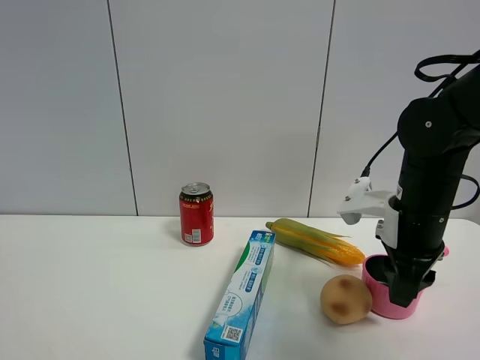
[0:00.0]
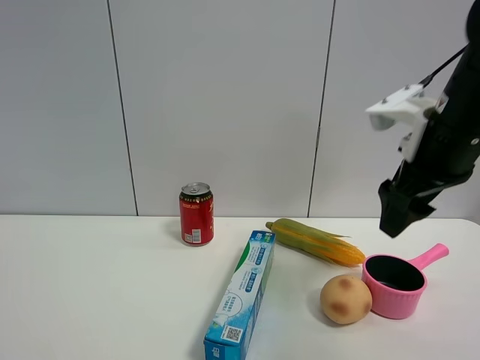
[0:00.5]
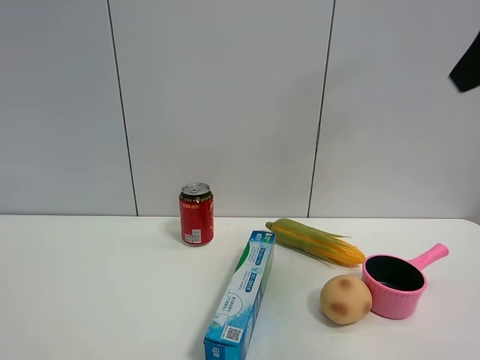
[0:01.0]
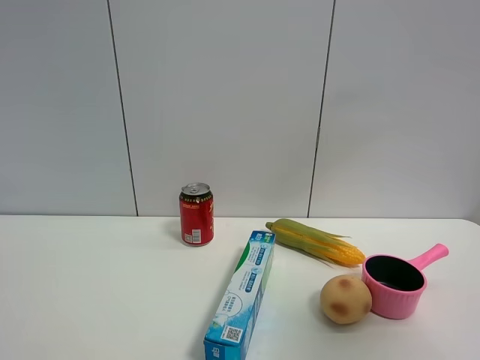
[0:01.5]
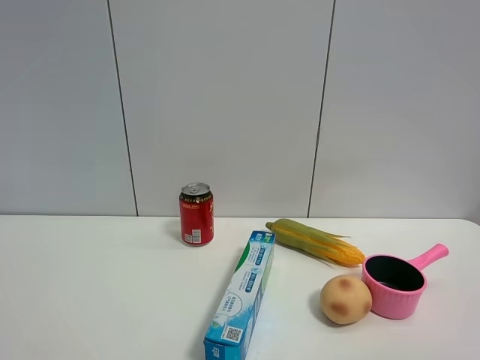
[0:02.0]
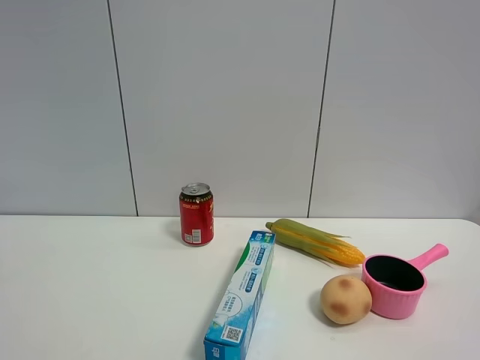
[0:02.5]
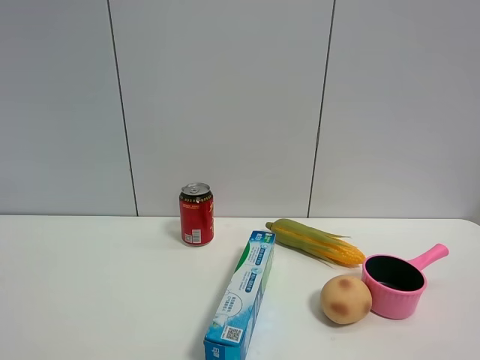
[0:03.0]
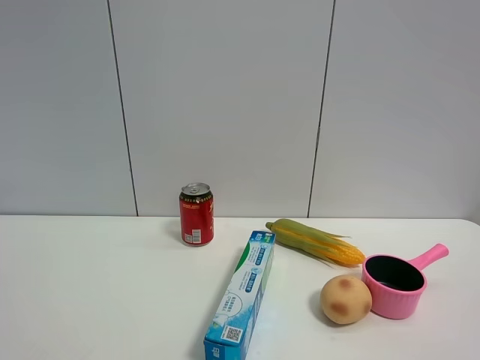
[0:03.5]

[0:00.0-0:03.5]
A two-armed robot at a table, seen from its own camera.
Task of the whole recording: the gripper move the object.
0:00.0 to 0:02.0: The right gripper is displaced backward and upward by some 35 cm, and opens.

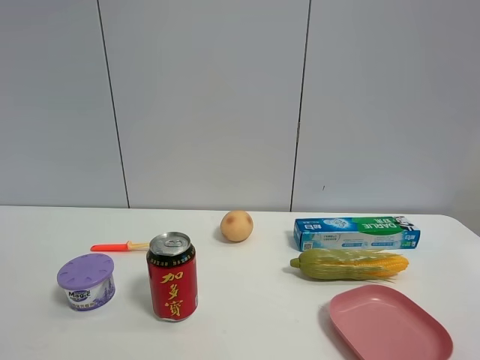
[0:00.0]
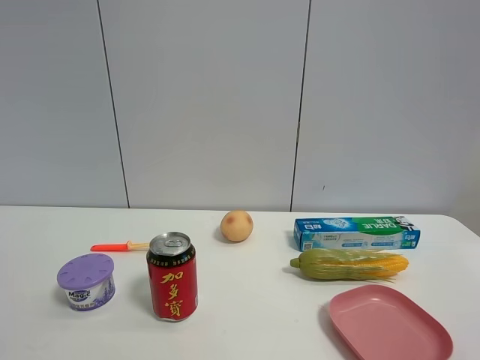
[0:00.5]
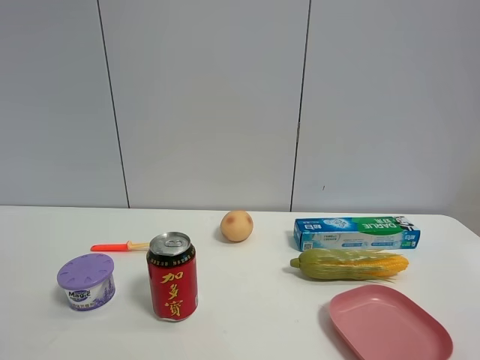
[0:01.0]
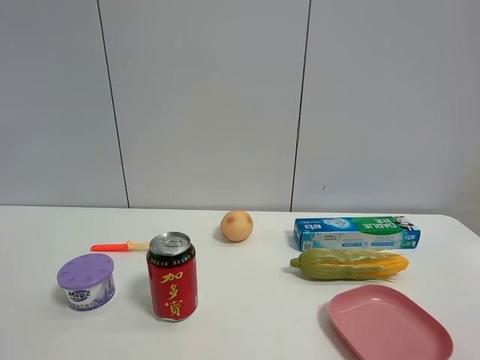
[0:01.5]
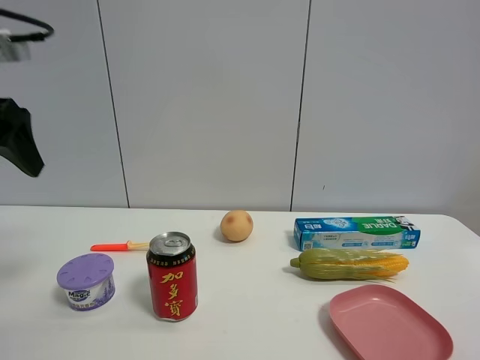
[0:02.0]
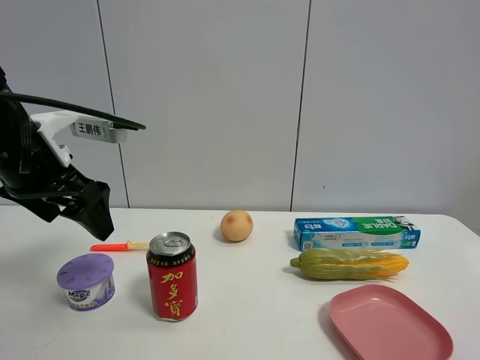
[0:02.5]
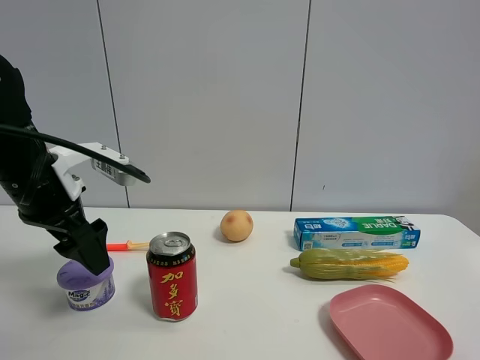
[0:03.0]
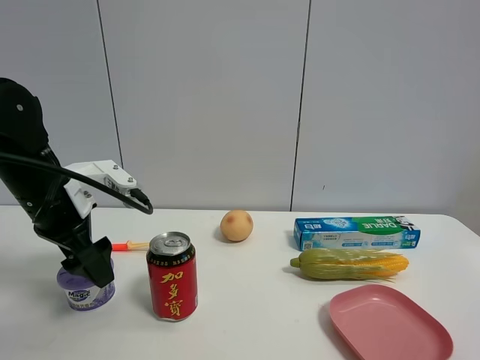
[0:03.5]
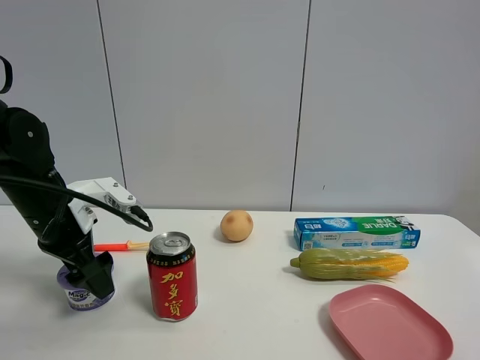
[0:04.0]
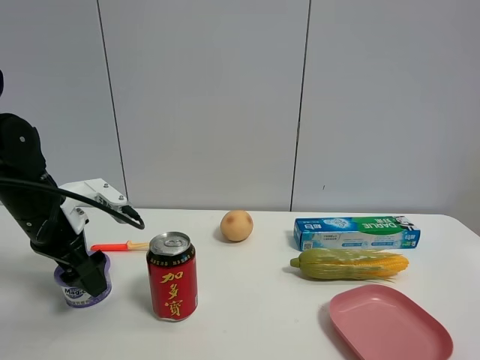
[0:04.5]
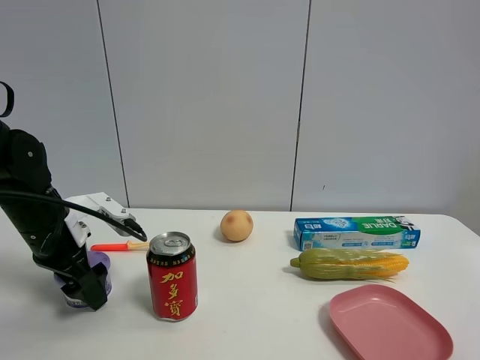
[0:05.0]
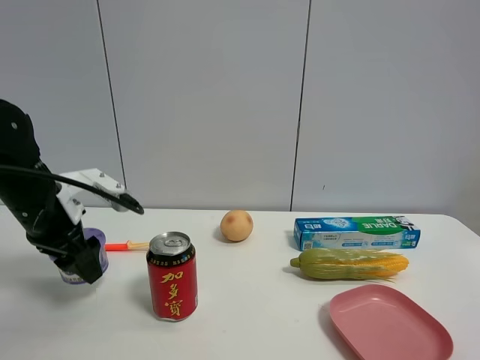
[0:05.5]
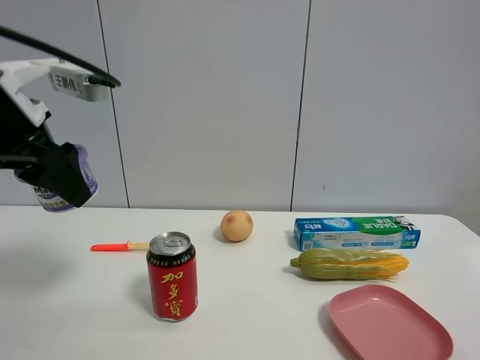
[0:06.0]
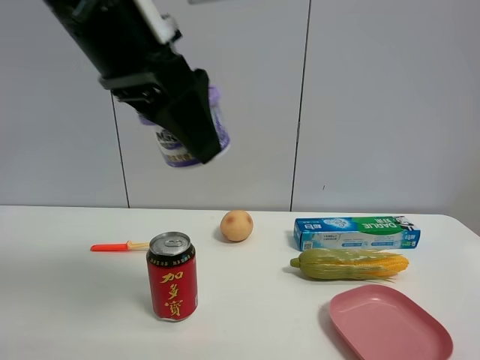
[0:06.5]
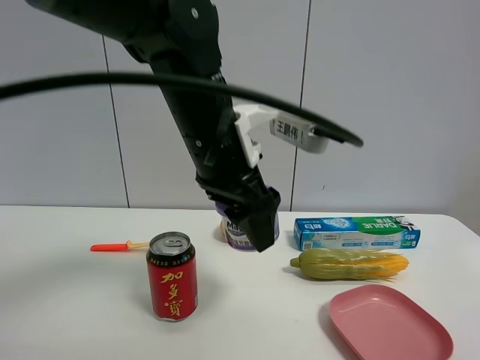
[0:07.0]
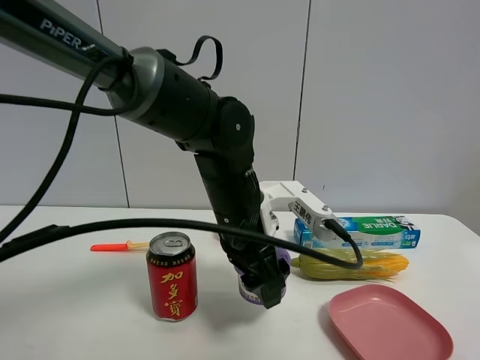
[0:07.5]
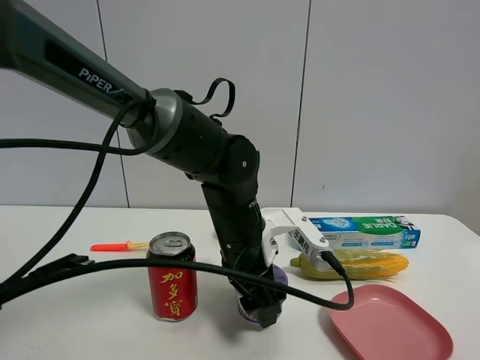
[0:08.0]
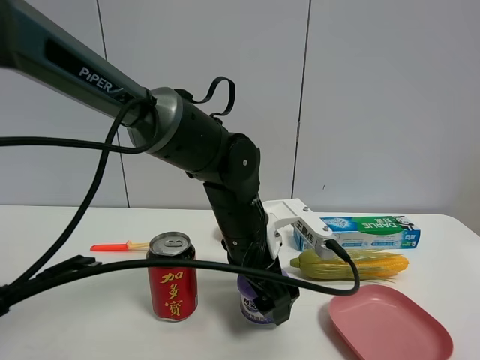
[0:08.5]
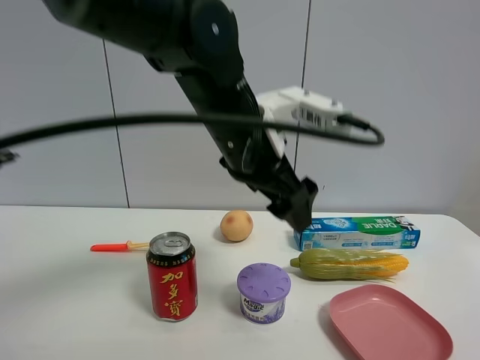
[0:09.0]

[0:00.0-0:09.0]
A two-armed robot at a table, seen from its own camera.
Task of the whole recording: the gripper move the object.
Step, 0:00.0 to 0:05.0: Grasp the Incense box with the left gripper.
Step, 0:05.5 to 0:08.5: Place the Incense box on the table with the left gripper.
0:00.0 to 0:02.0: The left gripper travels forward by some 30 cm.
0:02.0 to 0:04.5: The left gripper shifts roughly 20 cm downward and forward.
0:04.5 to 0:07.0: The left gripper moves to the right and upward, roughly 25 cm, and closes.
0:07.0 to 0:09.0: The left gripper goes downward and returns, some 10 cm each way, and opens.

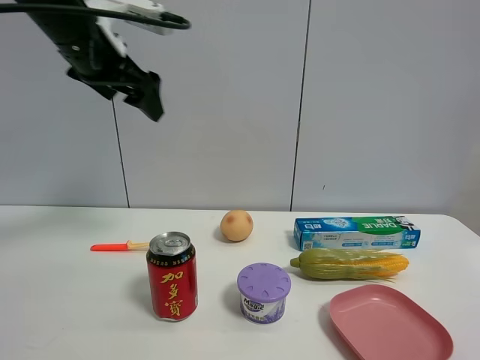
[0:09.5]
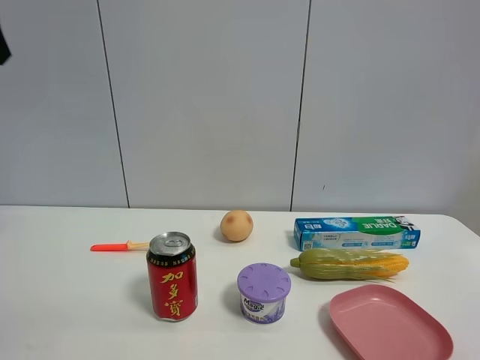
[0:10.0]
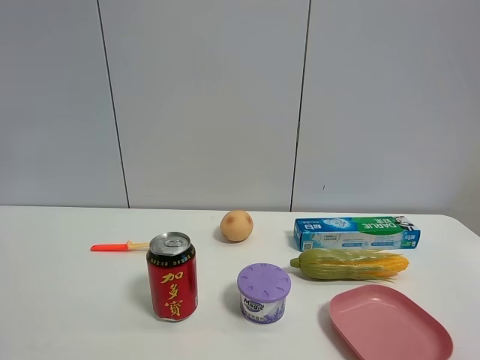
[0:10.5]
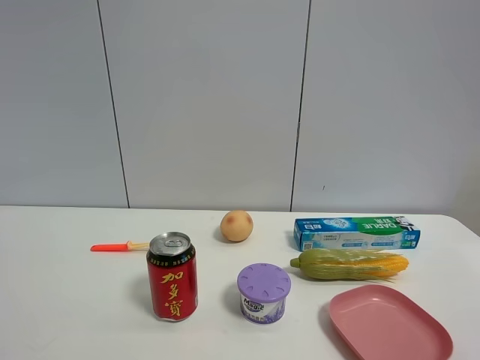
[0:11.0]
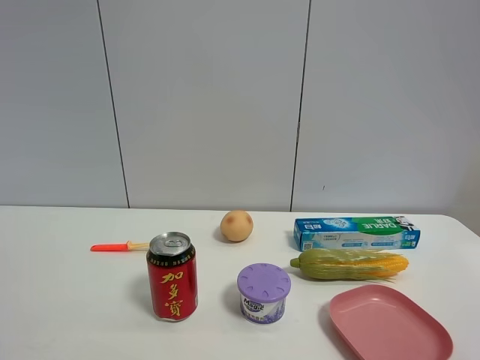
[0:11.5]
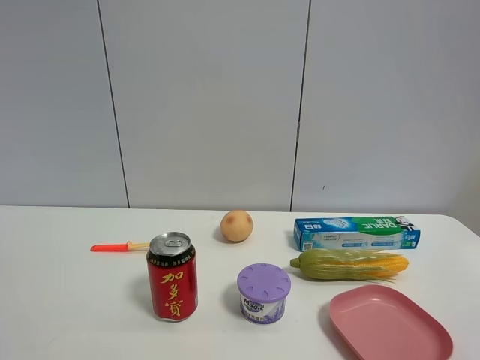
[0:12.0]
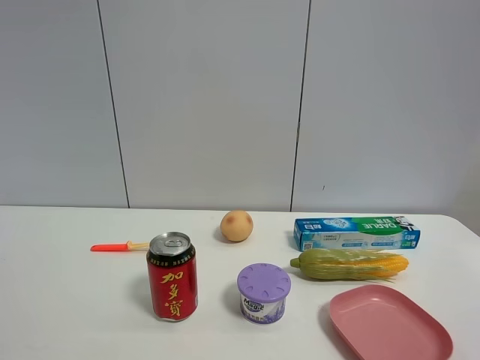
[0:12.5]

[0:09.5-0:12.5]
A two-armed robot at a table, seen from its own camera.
Task of the whole recording: the gripper move the object.
0:09.5 to 0:11.0: The left gripper is displaced backward by approximately 35 cm.

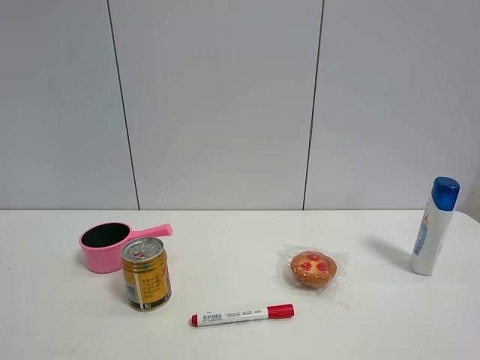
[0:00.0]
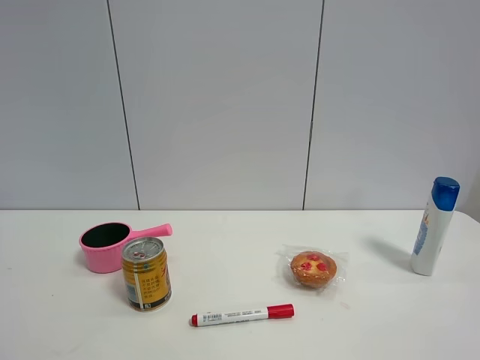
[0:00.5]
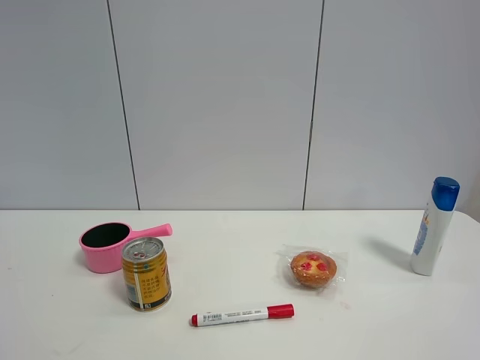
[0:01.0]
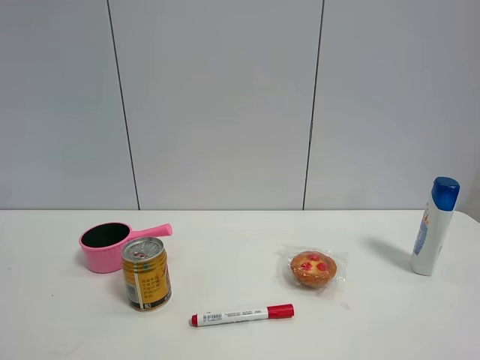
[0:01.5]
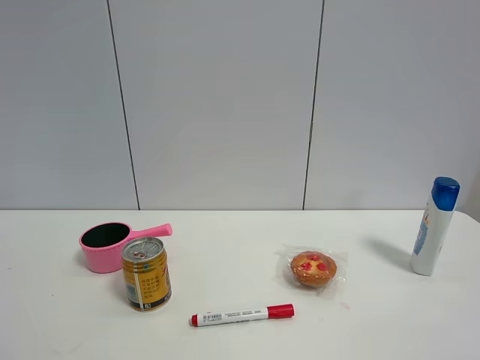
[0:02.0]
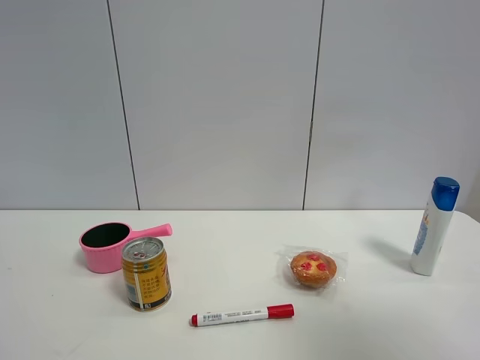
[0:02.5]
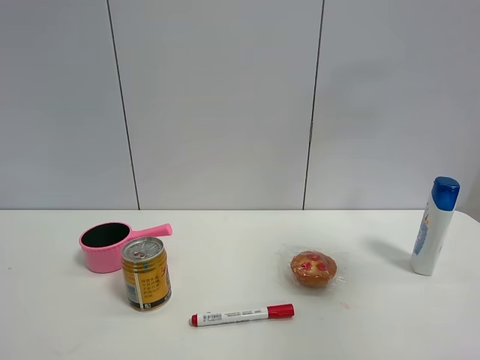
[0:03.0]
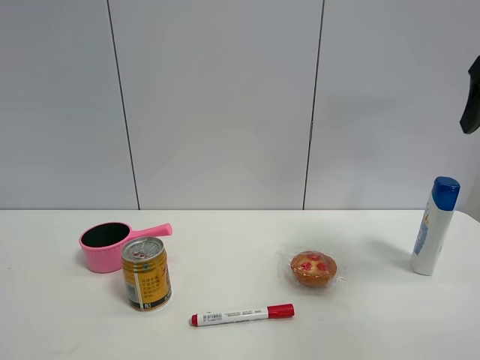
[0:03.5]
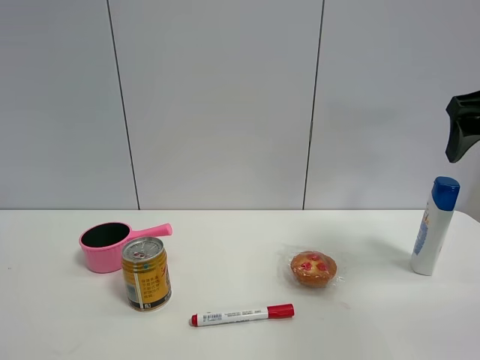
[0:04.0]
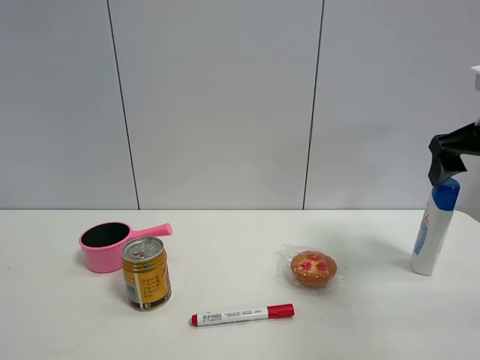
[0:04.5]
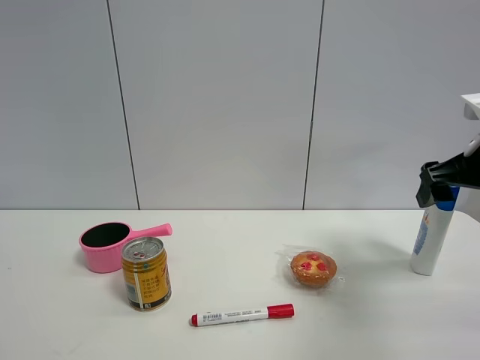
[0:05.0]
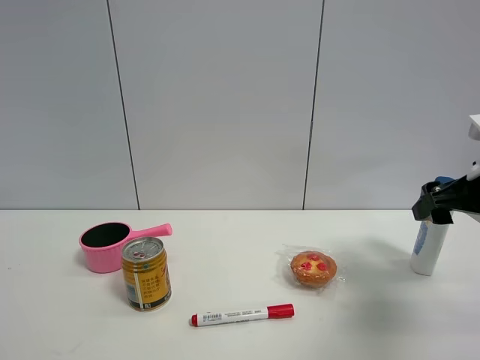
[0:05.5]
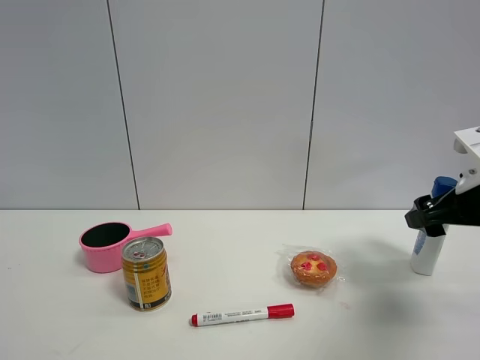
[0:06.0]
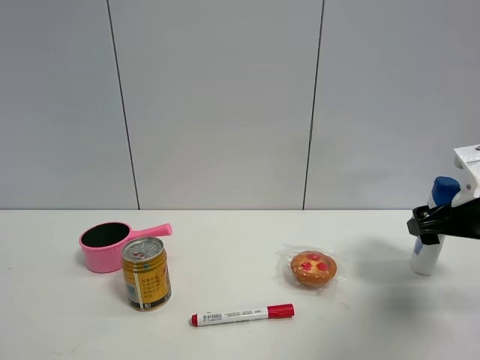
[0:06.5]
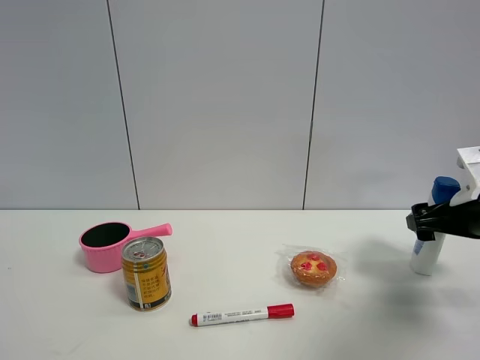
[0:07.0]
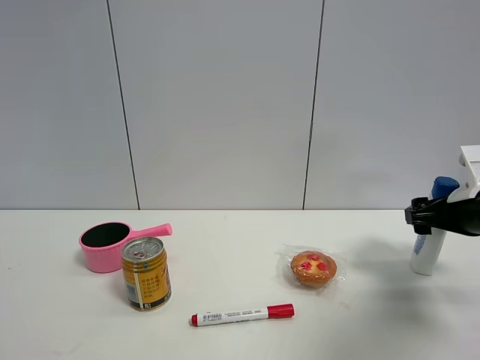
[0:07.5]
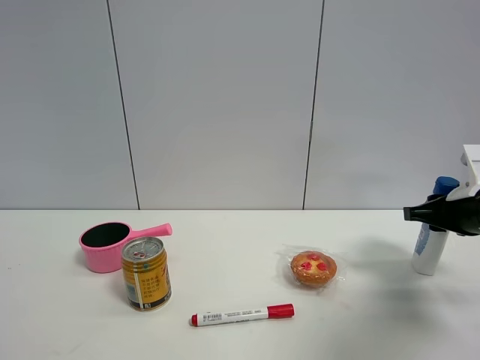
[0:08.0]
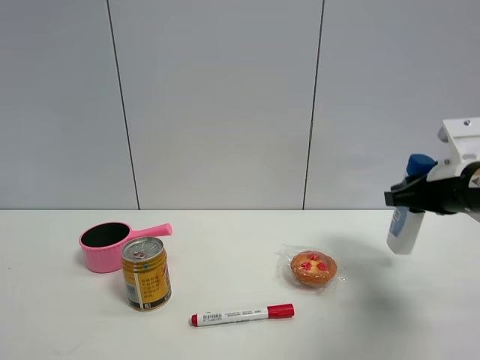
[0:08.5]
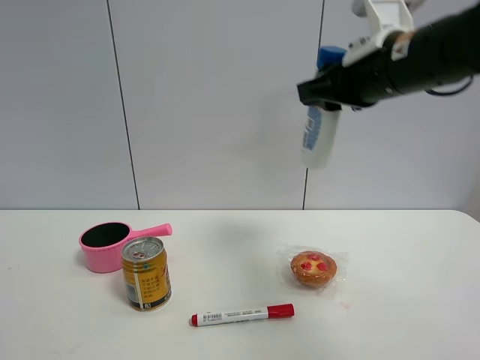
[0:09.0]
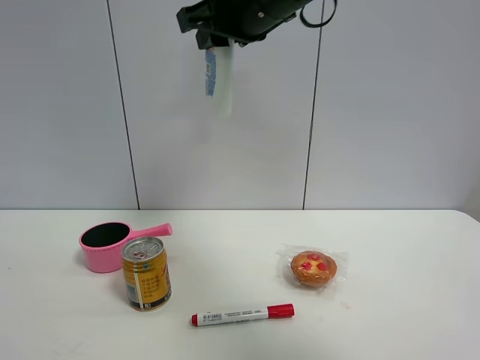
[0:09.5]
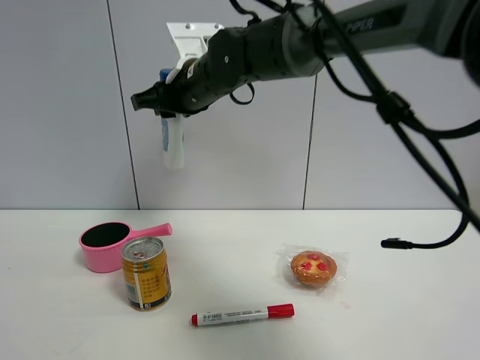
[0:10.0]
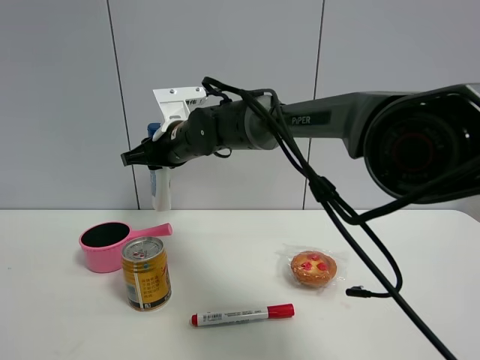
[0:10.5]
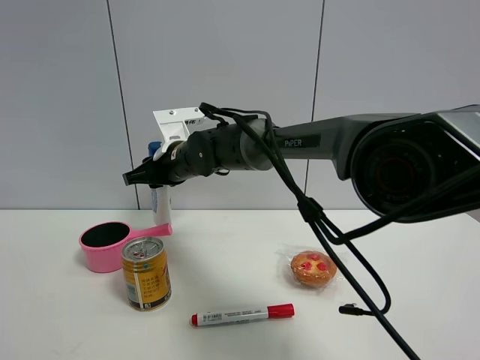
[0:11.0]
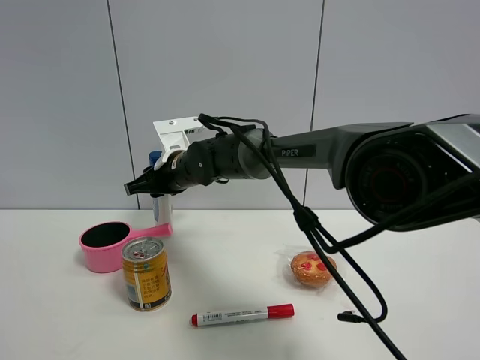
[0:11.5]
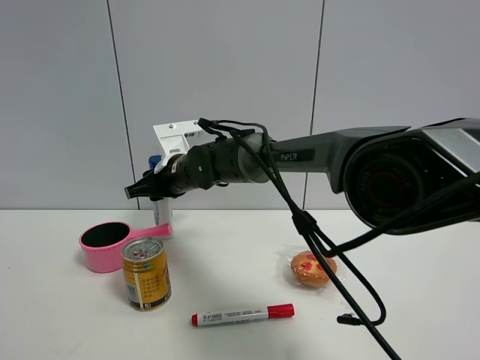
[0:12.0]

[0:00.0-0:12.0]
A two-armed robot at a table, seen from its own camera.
Task of the whole recording: the gripper move the object.
Step, 0:00.0 to 0:08.0: Grasp the shampoo with the right gripper.
0:02.0 to 0:04.0: The right gripper is displaced forward by roughly 30 cm.
0:04.0 to 0:06.0: The right gripper travels downward by roughly 15 cm.
0:06.0 to 0:08.0: The right gripper closes its fingers.
0:08.0 to 0:10.0: The right gripper is displaced to the left by about 40 cm.
0:10.0 to 0:12.0: The right gripper moves downward, about 15 cm.
